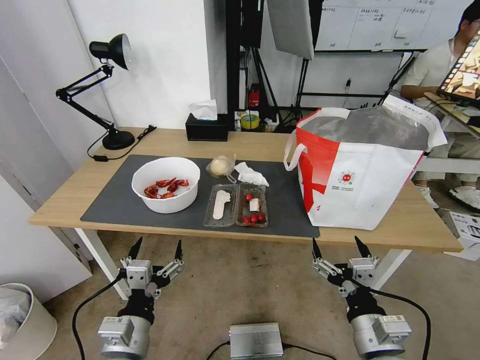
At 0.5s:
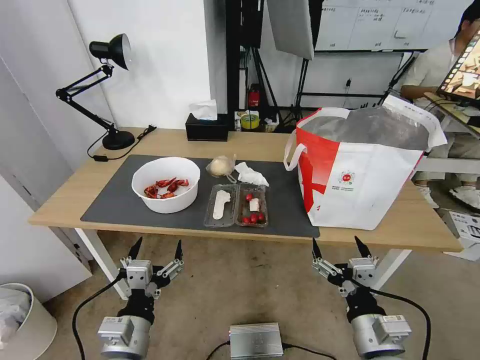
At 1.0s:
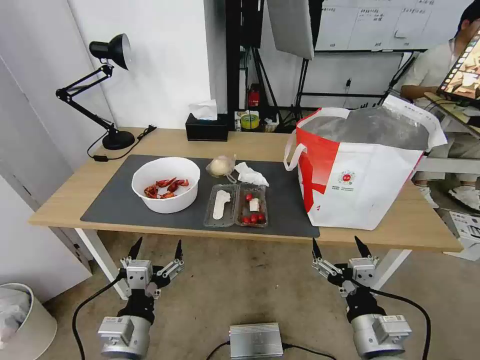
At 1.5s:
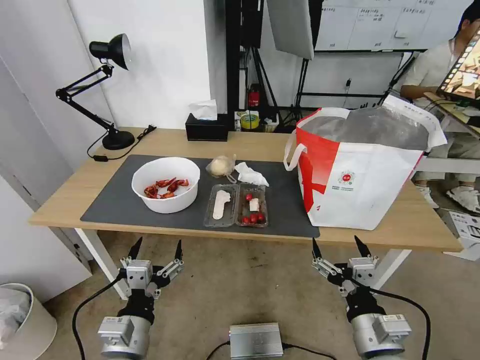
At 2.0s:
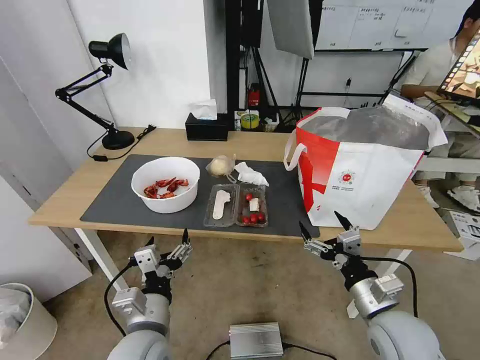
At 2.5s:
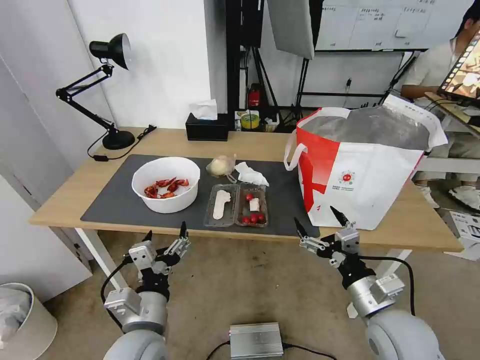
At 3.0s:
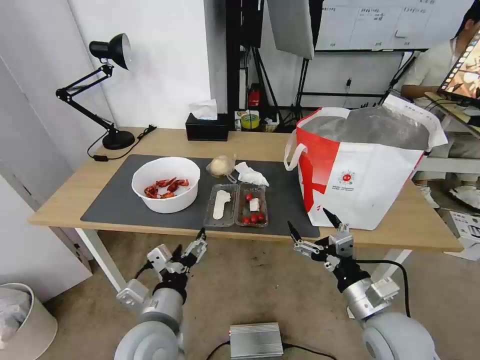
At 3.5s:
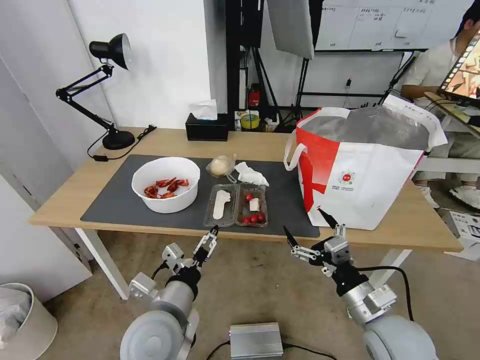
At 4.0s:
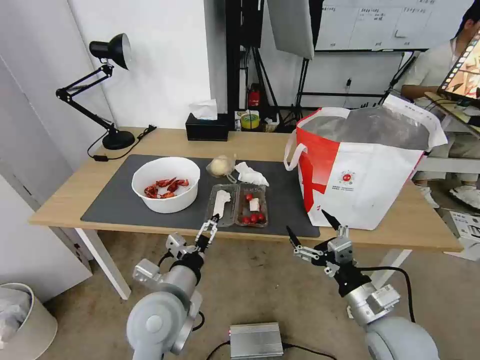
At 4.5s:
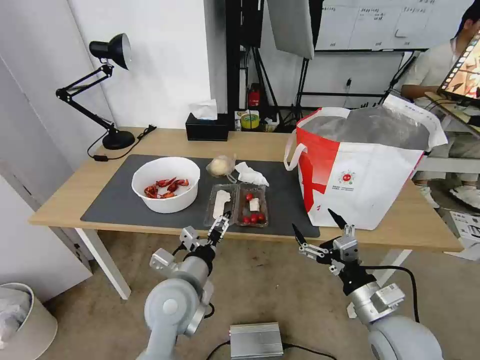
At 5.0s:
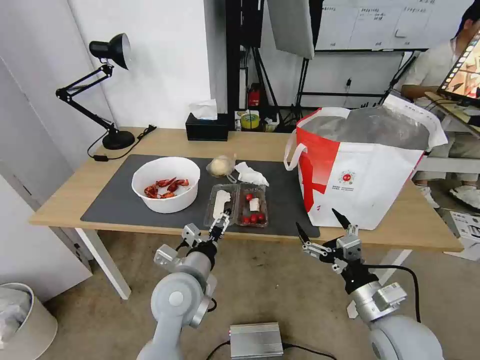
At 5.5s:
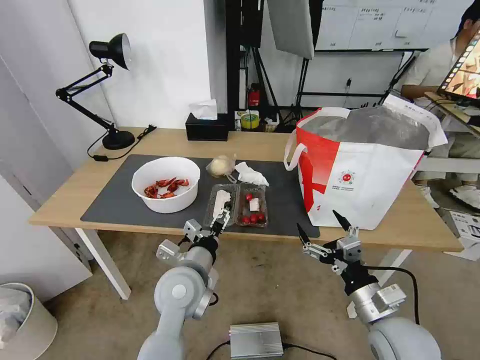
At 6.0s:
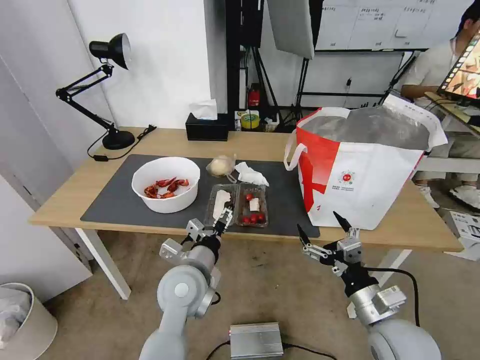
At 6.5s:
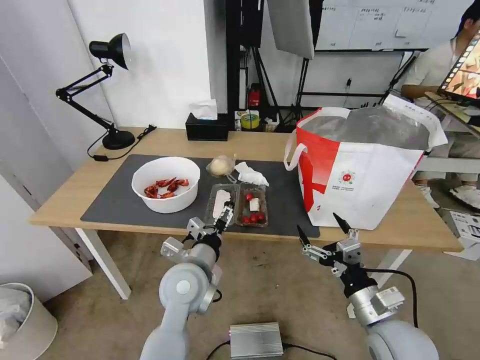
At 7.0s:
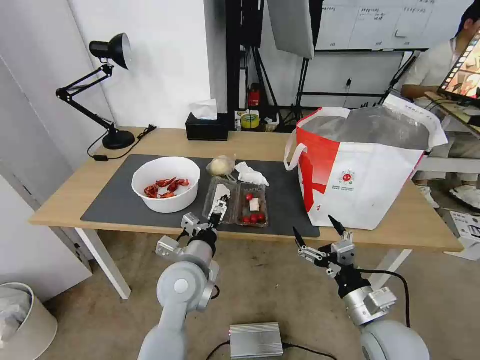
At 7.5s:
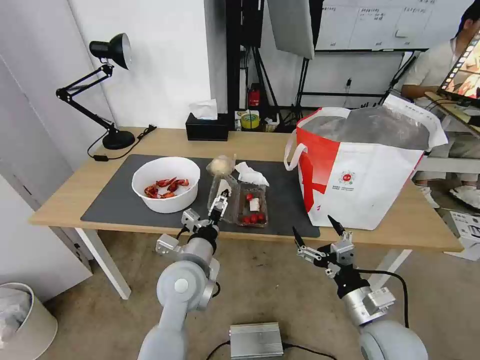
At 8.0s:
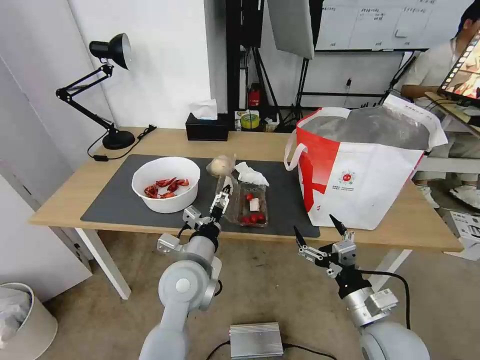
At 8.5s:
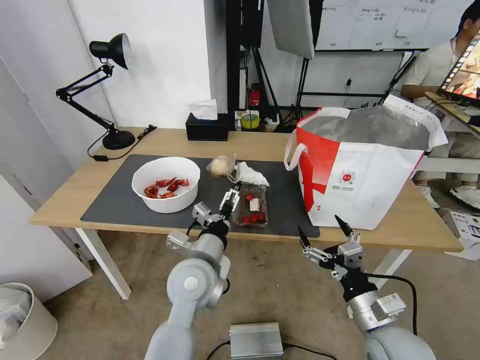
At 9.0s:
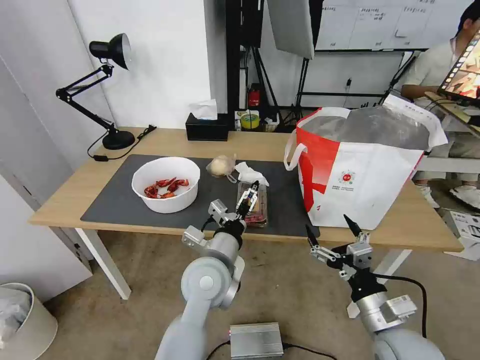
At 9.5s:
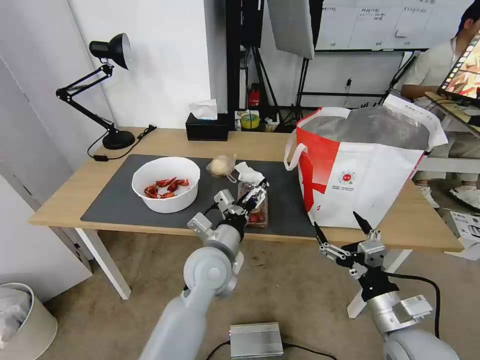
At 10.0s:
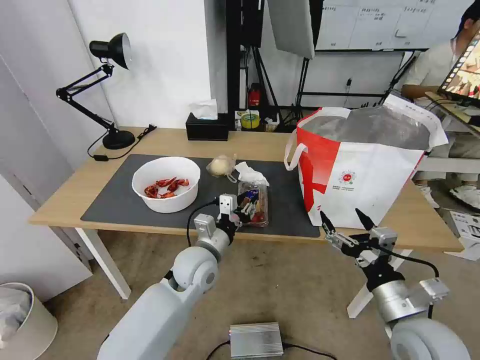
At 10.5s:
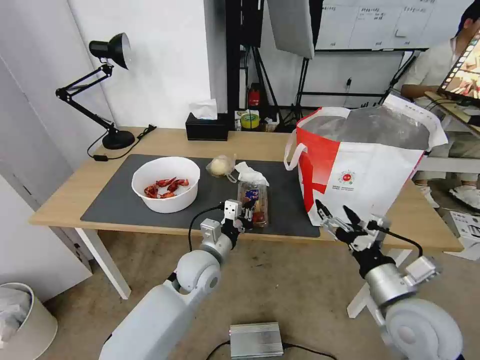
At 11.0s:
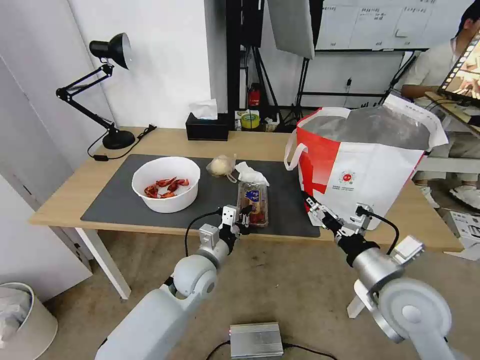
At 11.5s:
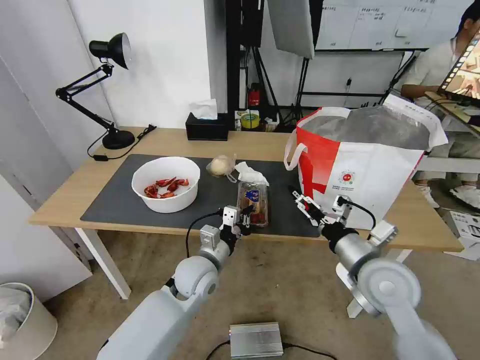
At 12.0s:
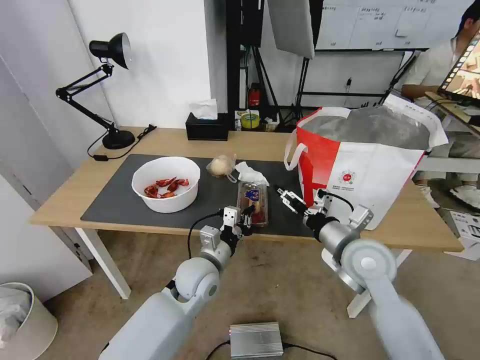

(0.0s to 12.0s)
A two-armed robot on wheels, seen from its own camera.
Task of the whole recording: Pick up the trash from the table and place it into the takeout bag.
2.0s - 4.0s: The left gripper travels forward by about 5 cm.
4.0s - 6.0s: The left gripper shifts about 5 cm forward.
6.0s - 8.0s: The grippers stay close to where they were, moving slightly.
8.0s - 10.0s: The right gripper shifts by about 5 cm; the left gripper shifts about 5 cm forward, and closes.
10.0s - 12.0s: The left gripper closes; the right gripper goes about 15 cm forward.

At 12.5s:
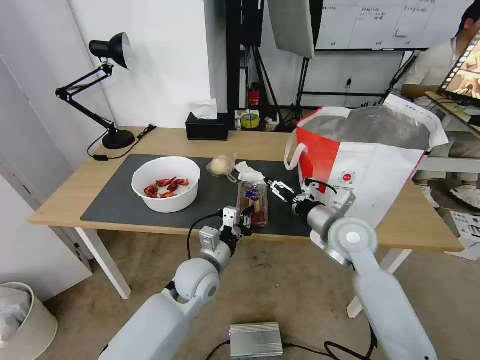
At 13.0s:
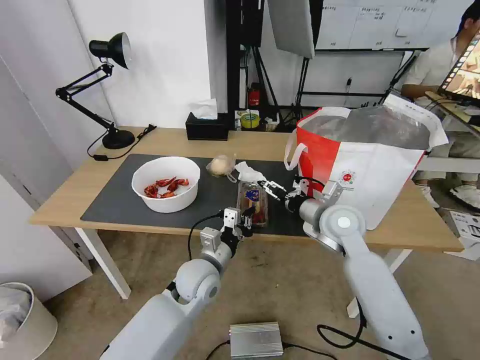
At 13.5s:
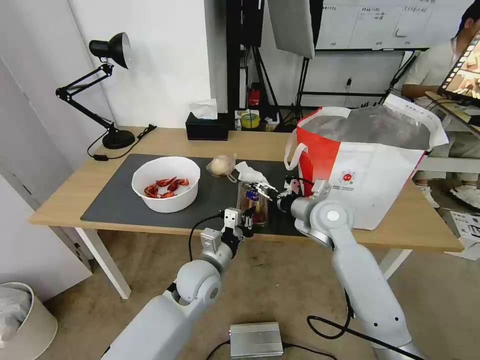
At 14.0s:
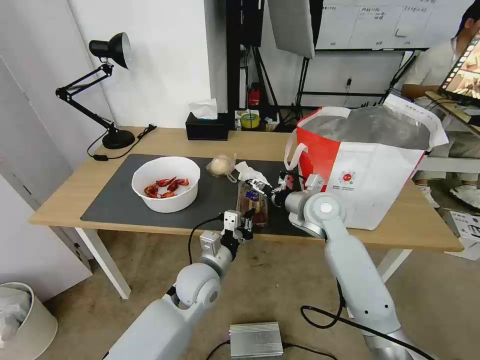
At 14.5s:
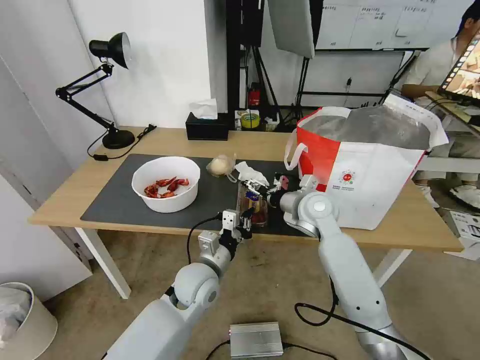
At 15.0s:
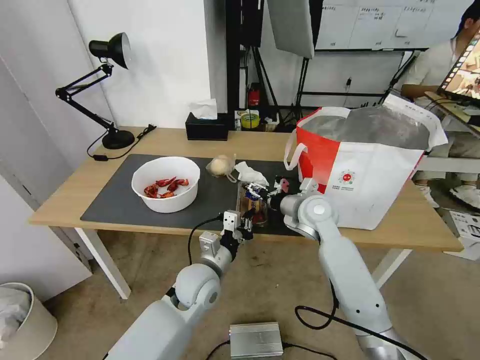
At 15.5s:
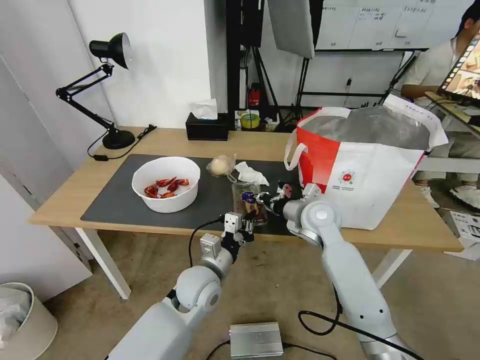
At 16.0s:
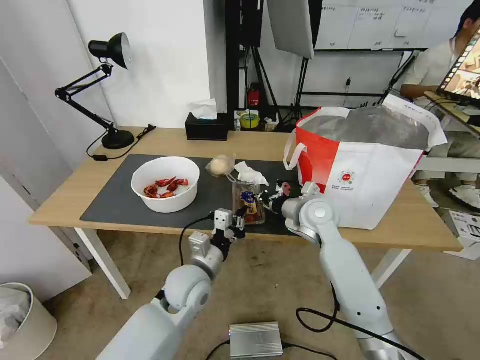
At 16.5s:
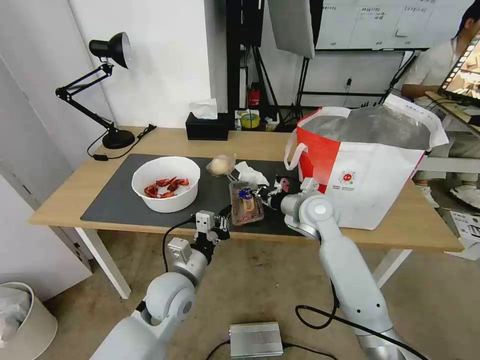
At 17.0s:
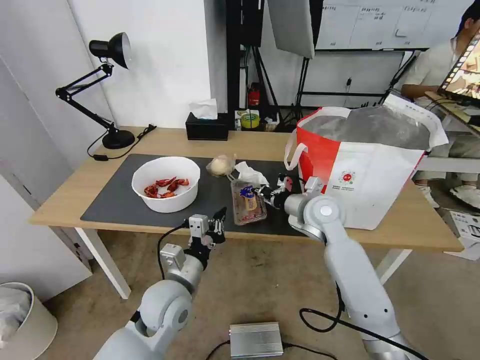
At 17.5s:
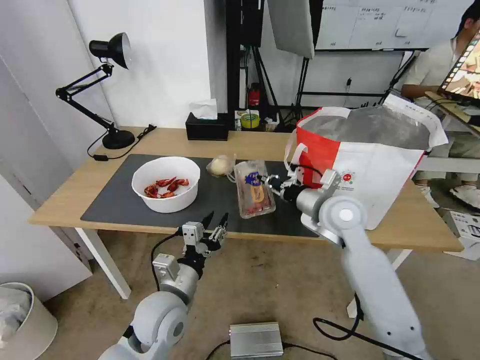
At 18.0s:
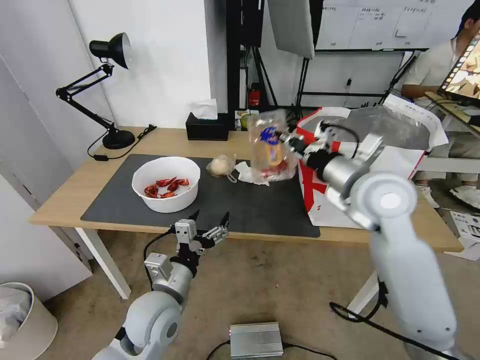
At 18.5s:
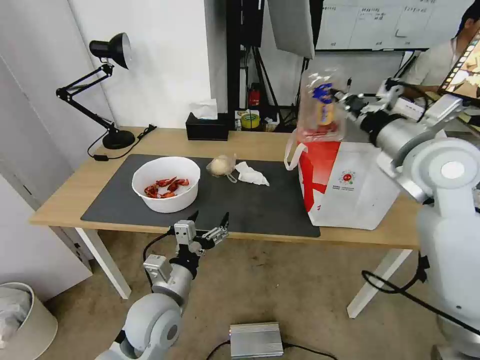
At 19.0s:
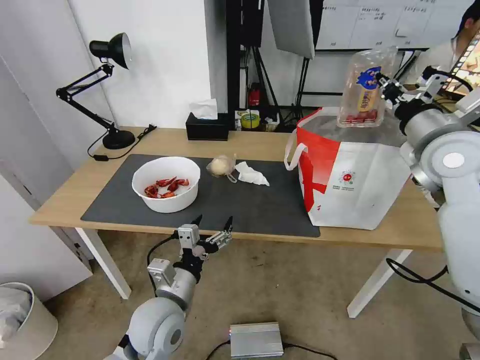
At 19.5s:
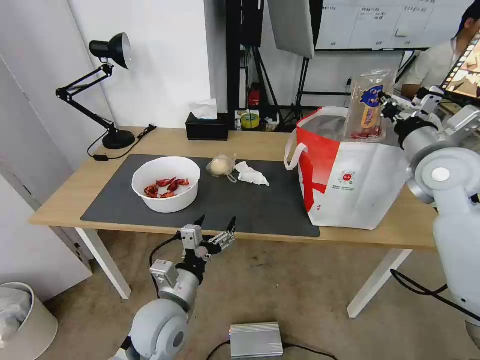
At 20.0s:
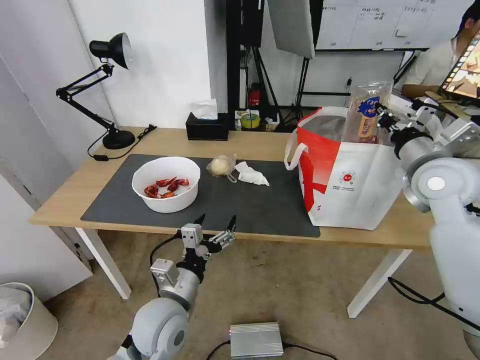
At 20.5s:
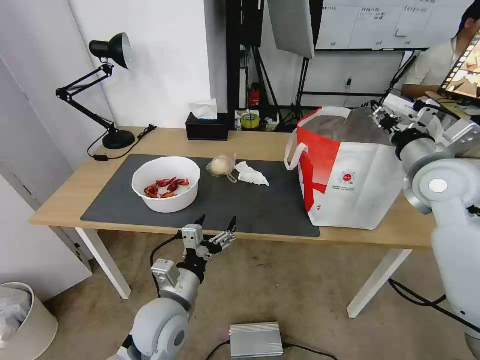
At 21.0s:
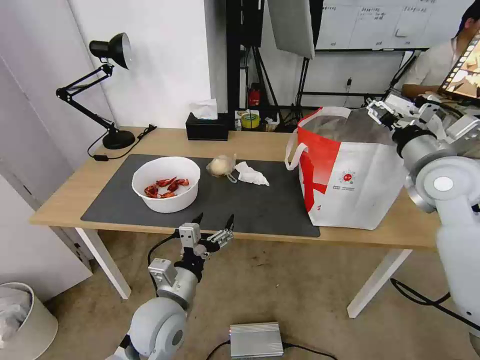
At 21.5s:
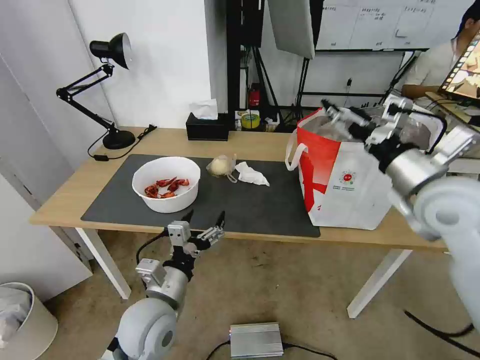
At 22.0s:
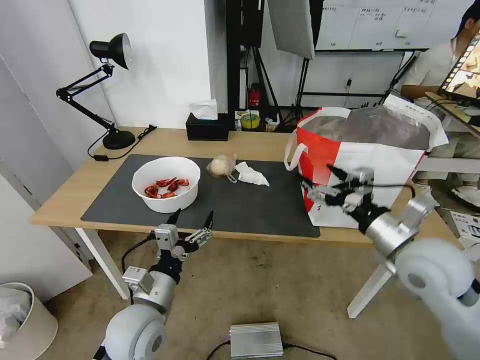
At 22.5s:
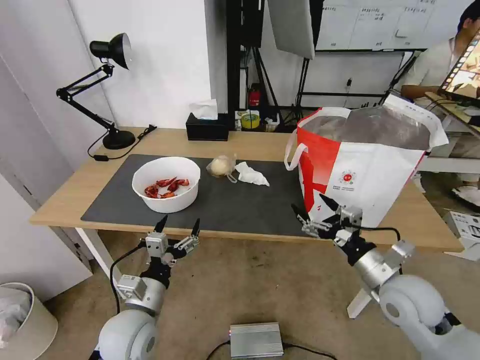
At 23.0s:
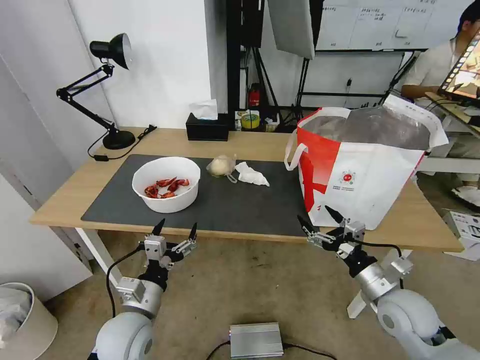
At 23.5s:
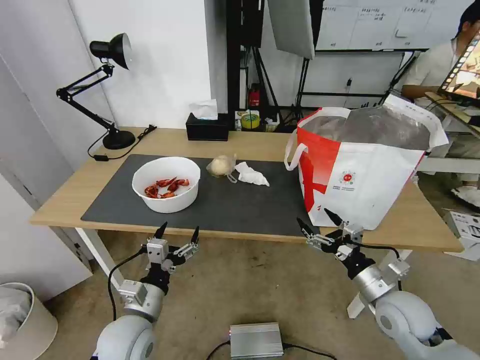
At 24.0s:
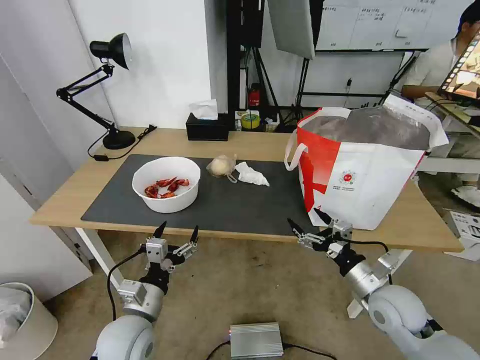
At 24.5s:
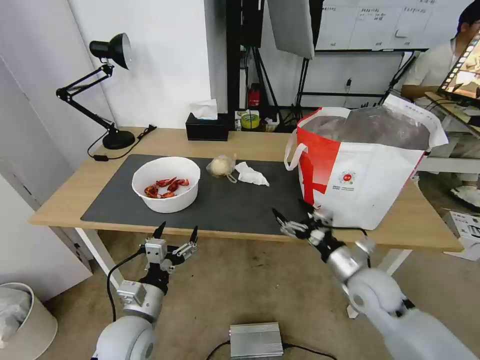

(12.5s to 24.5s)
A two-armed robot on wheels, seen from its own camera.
Task of the whole recording: Pick up the trash from the table and place it into the takeout bag.
12.5s - 14.5s: The right gripper heads forward, covering approximately 10 cm.
14.5s - 16.5s: The left gripper shifts by roughly 5 cm. The right gripper closes up.
16.5s - 18.5s: The left gripper shifts approximately 5 cm backward, and opens up. Meanwhile the right gripper is displaced upward and to the right by roughly 25 cm.
18.5s - 20.5s: The right gripper is displaced to the right and downward by roughly 10 cm, and opens.
20.5s - 22.5s: The right gripper goes approximately 20 cm downward and backward, and opens its fingers; the left gripper is displaced to the left by approximately 5 cm.
22.5s - 24.5s: The right gripper shifts by roughly 5 cm.

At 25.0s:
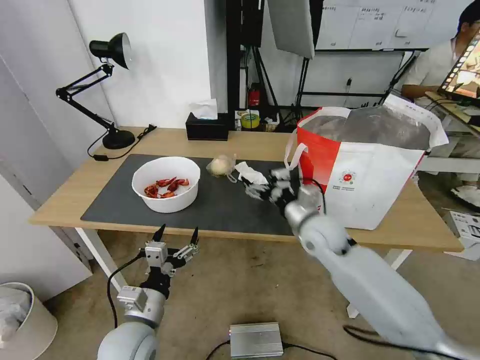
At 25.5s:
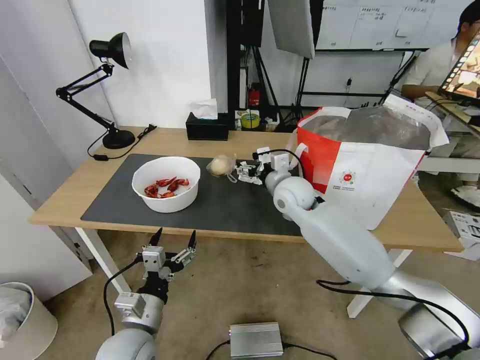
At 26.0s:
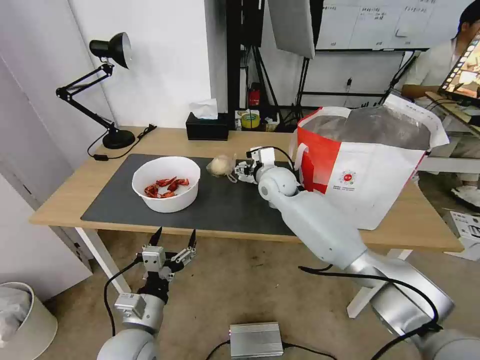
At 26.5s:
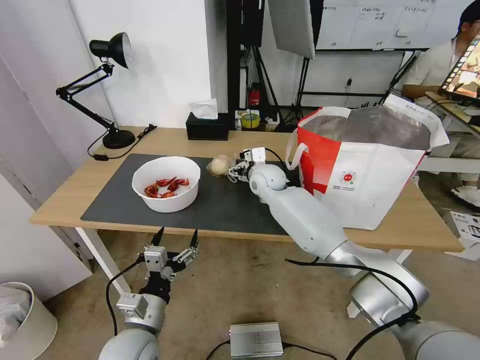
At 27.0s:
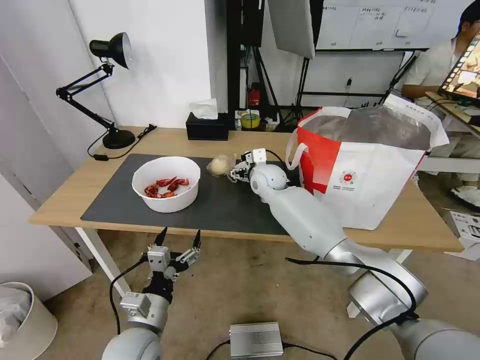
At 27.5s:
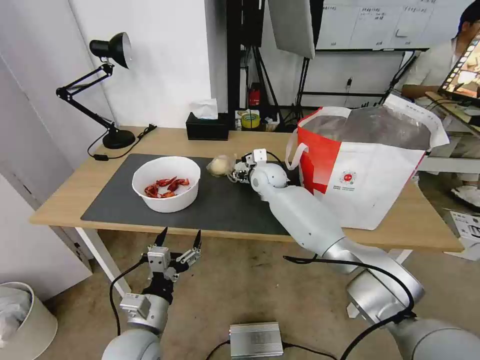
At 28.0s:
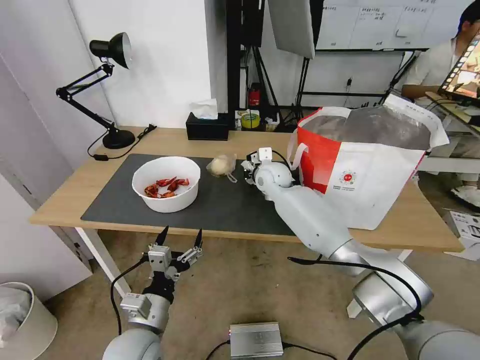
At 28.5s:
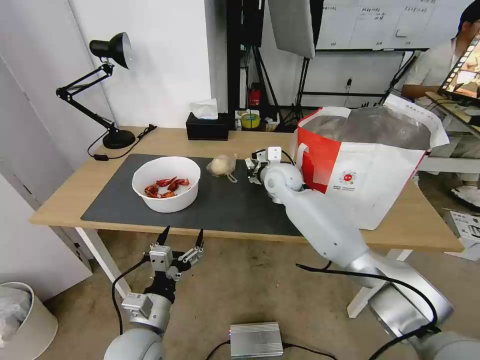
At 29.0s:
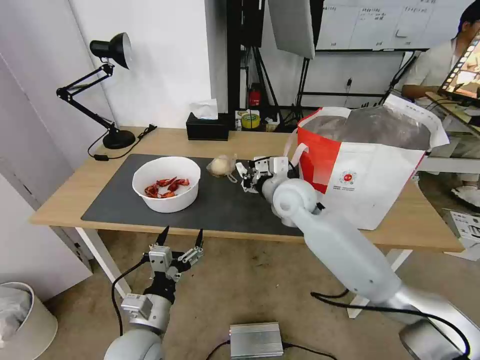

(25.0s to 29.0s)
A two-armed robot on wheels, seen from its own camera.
Task of the whole recording: Pick up the trash from the table and place it into the takeout bag.
25.0s - 27.0s: The right gripper moves forward and to the left, roughly 20 cm.
27.0s - 29.0s: The right gripper goes approximately 15 cm backward and upward, and closes.
